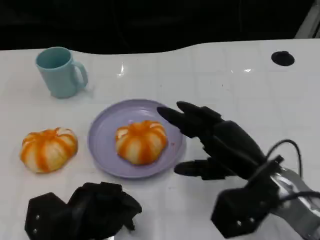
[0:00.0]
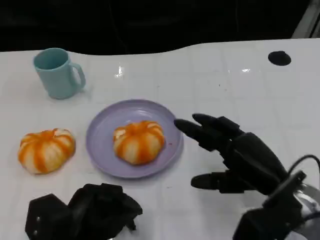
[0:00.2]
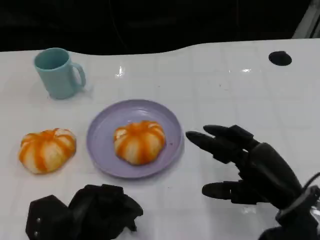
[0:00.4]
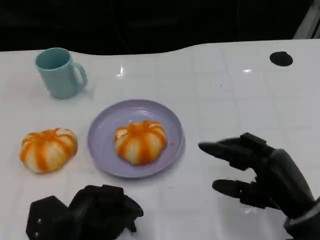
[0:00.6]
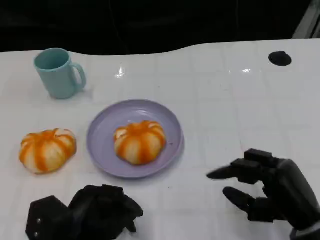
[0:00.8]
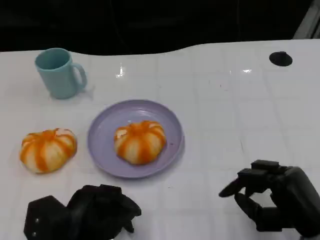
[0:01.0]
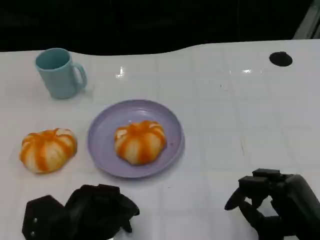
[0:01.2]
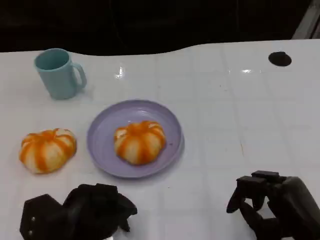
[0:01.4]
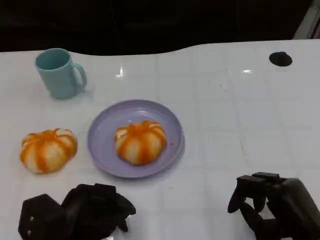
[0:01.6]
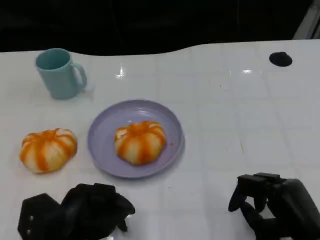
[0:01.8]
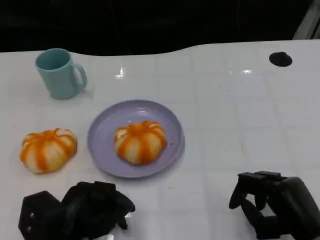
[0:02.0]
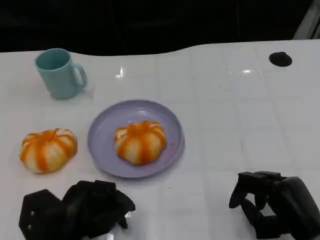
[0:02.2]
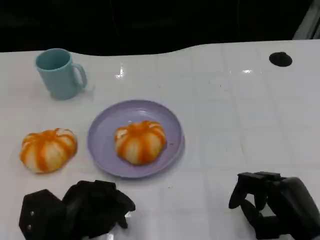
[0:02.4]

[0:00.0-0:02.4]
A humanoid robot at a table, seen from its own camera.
Task of the whole recording: Grasp the bread from the table and place it into the plate.
0:00.0 to 0:01.2: The right hand heads backward, to the right and downward, covering some 10 cm.
0:01.2 to 0:02.4: There are only small adjustments of the hands.

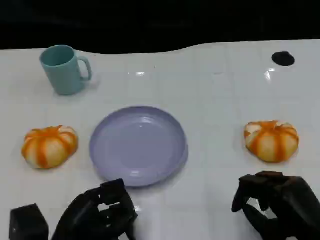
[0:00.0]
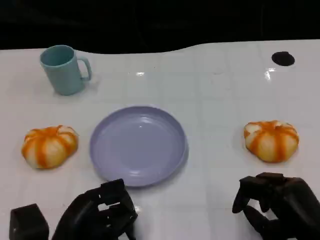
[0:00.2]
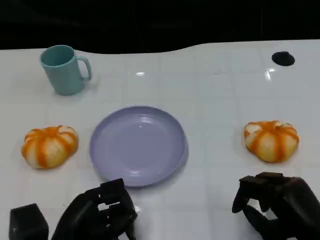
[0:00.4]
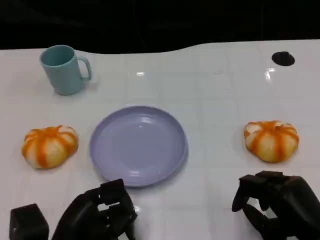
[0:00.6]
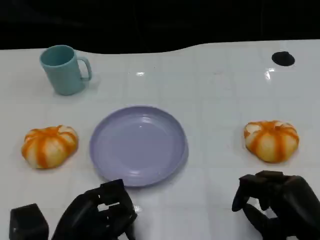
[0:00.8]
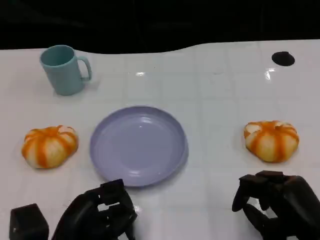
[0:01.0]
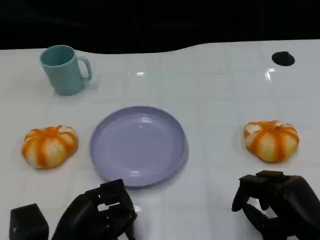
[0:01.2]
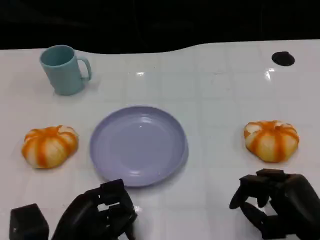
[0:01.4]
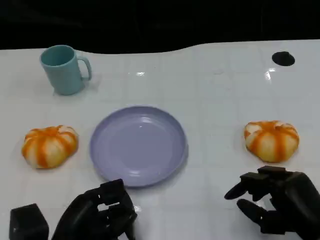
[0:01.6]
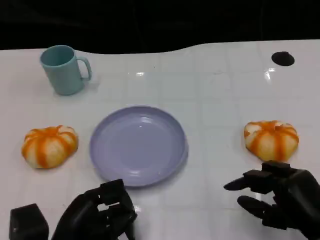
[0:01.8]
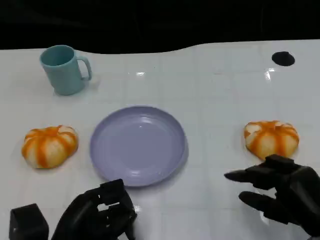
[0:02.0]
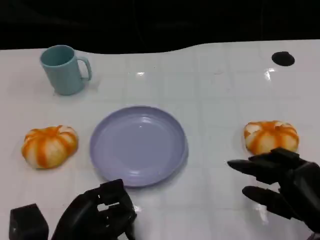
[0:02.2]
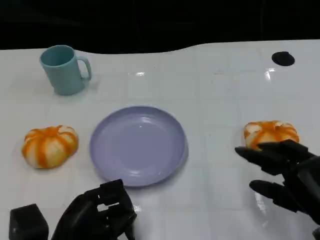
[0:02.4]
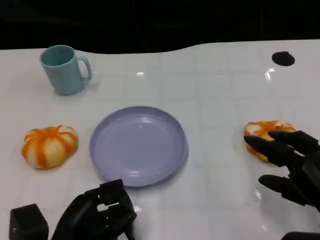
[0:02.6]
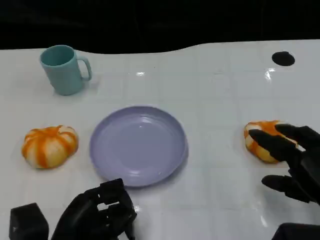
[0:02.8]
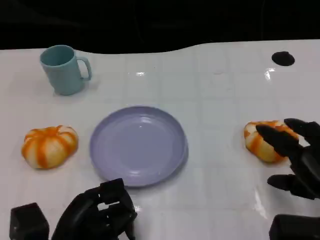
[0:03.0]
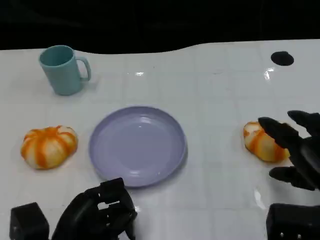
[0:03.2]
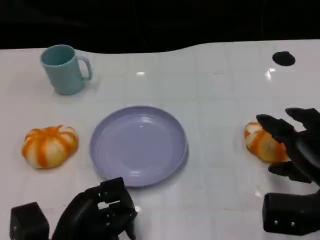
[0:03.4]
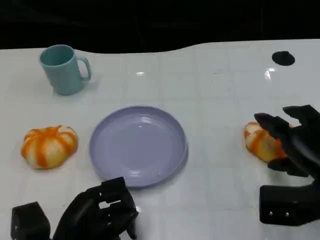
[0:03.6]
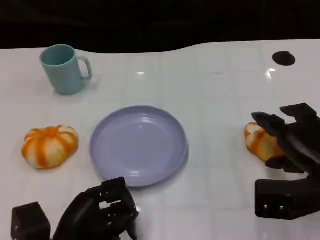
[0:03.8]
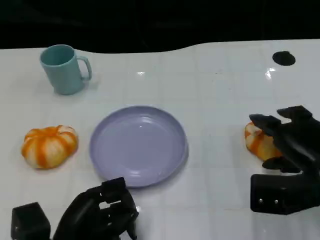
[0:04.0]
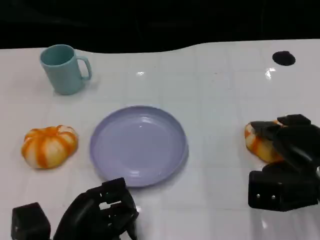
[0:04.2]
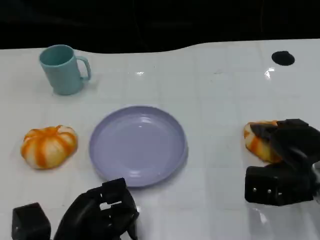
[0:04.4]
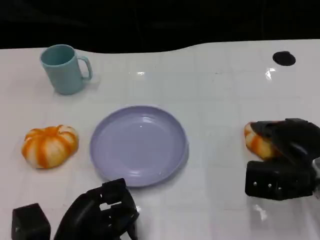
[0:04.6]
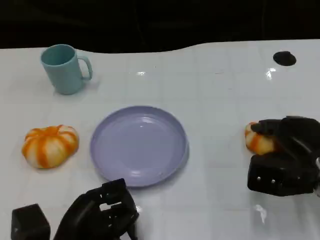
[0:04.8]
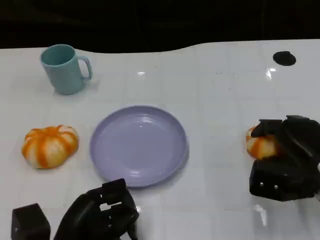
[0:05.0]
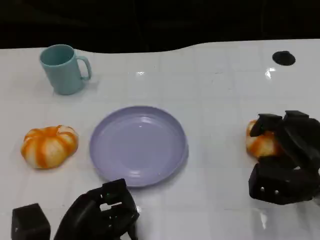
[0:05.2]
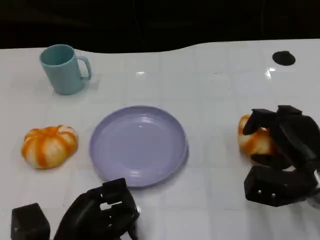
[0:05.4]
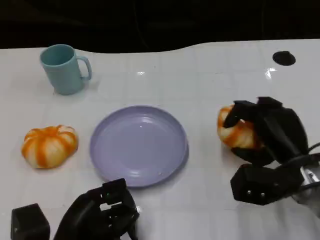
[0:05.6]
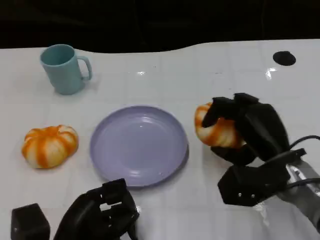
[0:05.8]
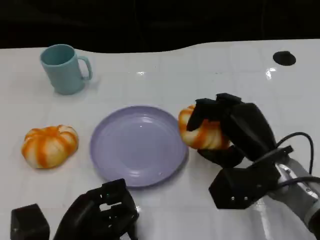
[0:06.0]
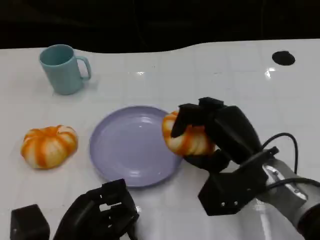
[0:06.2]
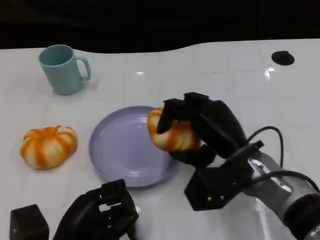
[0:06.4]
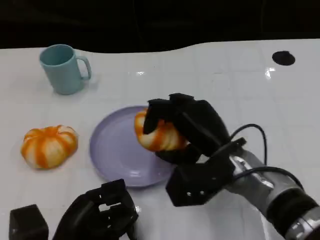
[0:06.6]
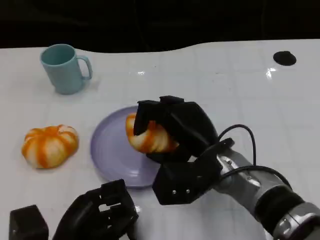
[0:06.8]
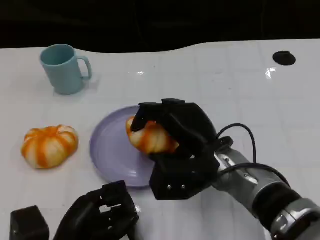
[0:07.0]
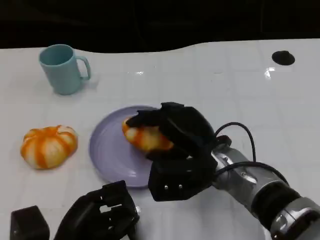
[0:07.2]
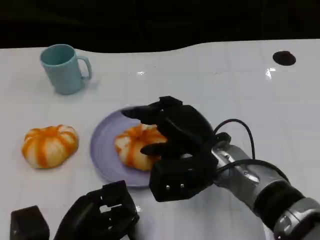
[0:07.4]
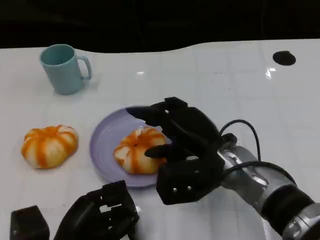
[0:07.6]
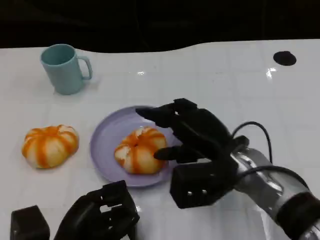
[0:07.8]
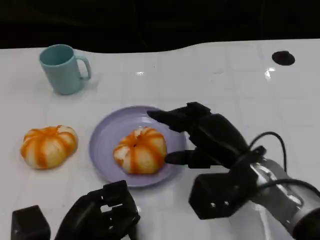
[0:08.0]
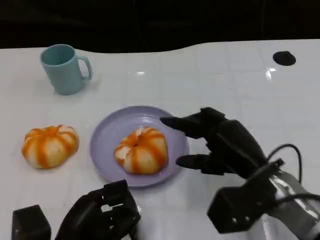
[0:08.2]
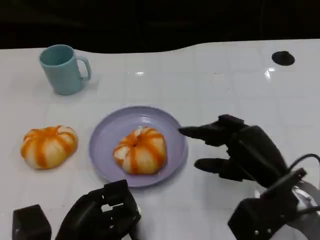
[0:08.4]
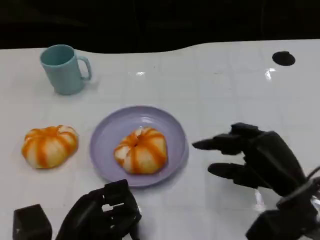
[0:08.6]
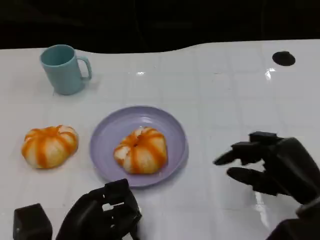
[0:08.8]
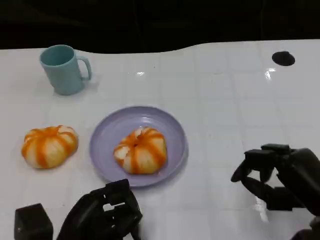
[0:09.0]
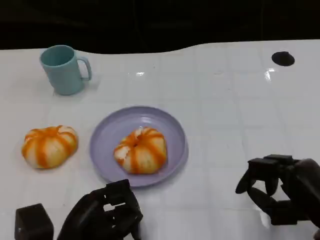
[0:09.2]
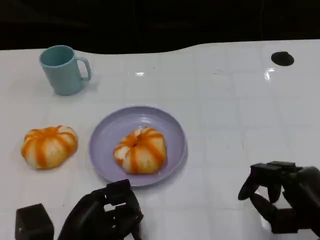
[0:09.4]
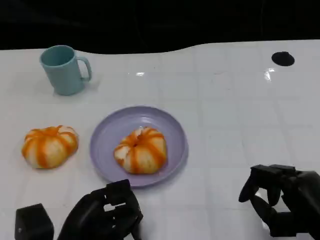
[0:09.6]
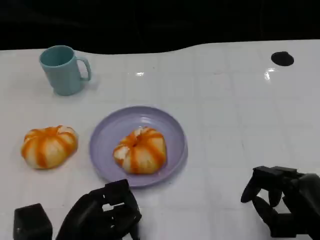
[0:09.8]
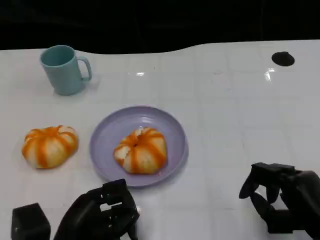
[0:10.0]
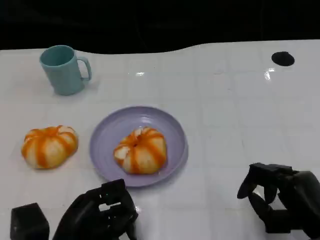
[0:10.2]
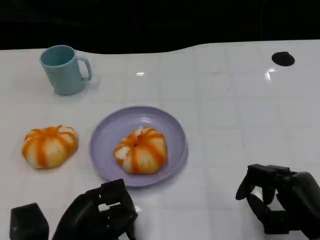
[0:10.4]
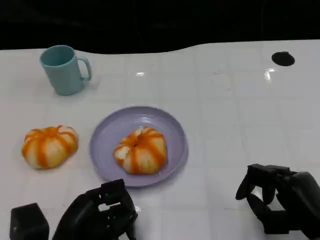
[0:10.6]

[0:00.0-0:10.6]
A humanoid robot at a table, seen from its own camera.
Task of the whole recording: Grasp the bread from the table and place it into the plate.
0:00.0 to 0:01.6: Neither hand changes place.
0:01.6 to 0:03.0: The right hand ends up approximately 5 cm from where it was.
0:03.0 to 0:04.6: The right hand travels forward by approximately 10 cm.
0:04.6 to 0:06.0: The right hand goes some 10 cm to the left.
0:06.0 to 0:07.6: The right hand is displaced to the left by some 5 cm.
0:07.6 to 0:09.0: The right hand travels to the right and backward by some 15 cm.
0:09.0 to 0:10.6: There are only small adjustments of the hands.

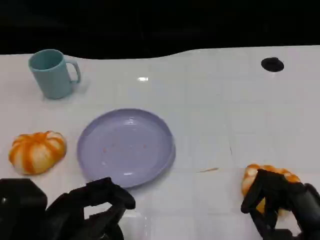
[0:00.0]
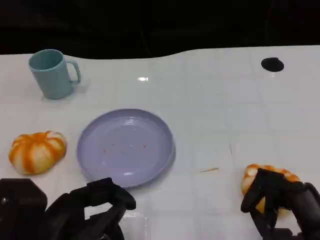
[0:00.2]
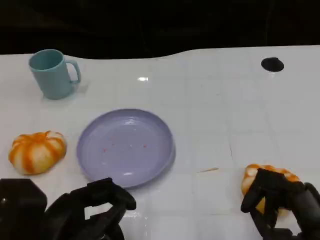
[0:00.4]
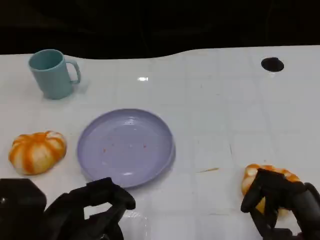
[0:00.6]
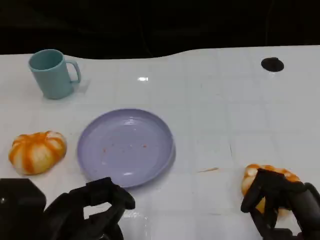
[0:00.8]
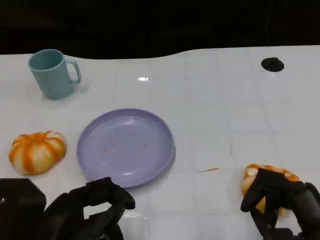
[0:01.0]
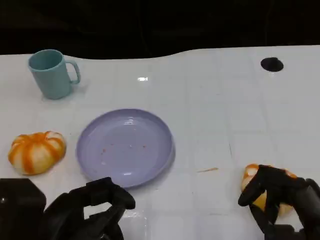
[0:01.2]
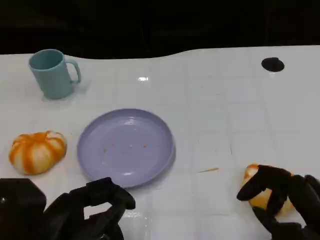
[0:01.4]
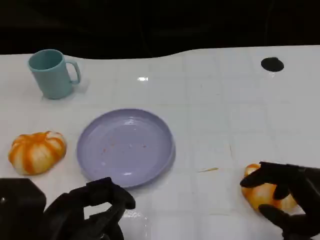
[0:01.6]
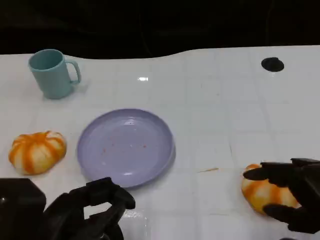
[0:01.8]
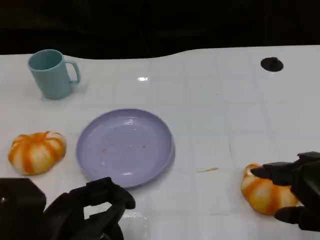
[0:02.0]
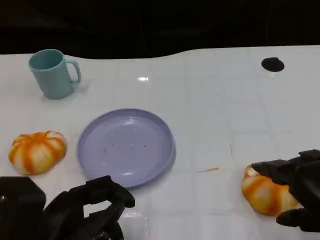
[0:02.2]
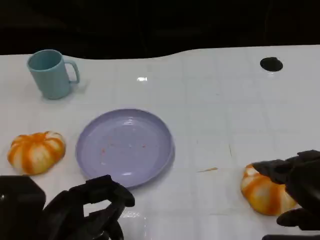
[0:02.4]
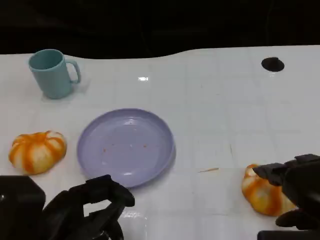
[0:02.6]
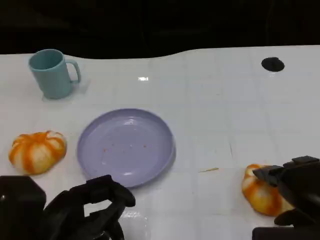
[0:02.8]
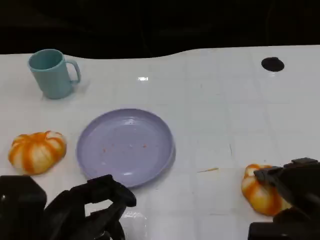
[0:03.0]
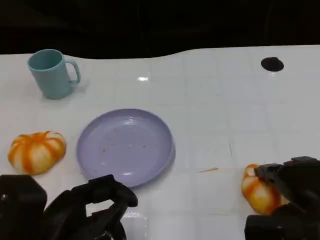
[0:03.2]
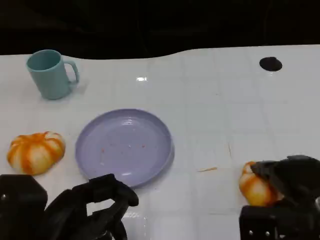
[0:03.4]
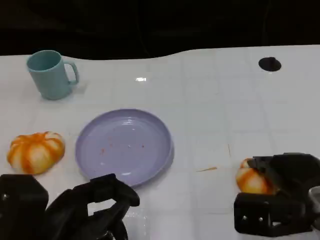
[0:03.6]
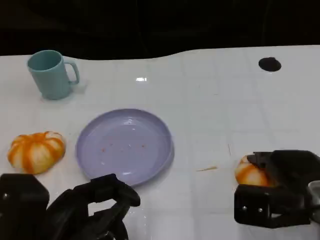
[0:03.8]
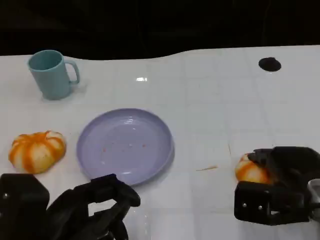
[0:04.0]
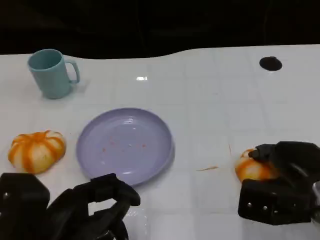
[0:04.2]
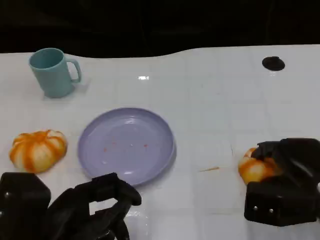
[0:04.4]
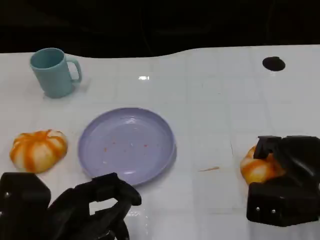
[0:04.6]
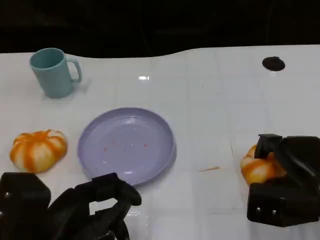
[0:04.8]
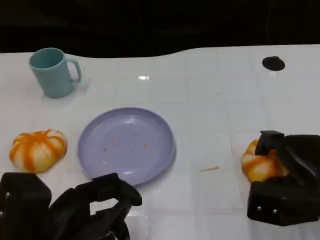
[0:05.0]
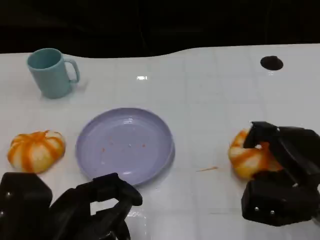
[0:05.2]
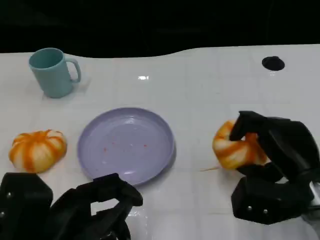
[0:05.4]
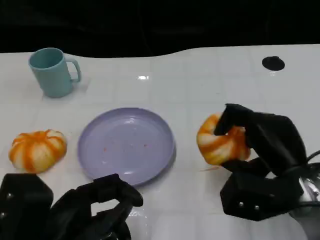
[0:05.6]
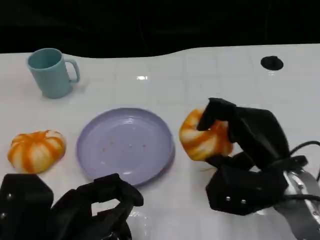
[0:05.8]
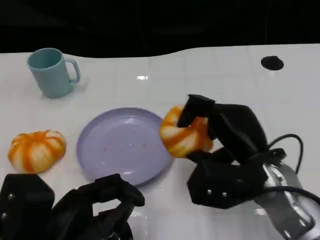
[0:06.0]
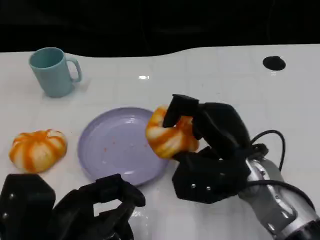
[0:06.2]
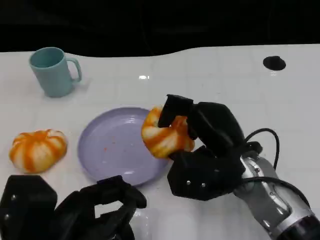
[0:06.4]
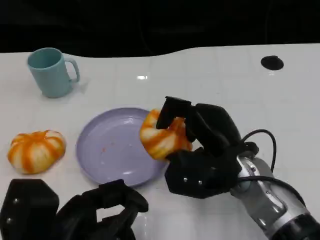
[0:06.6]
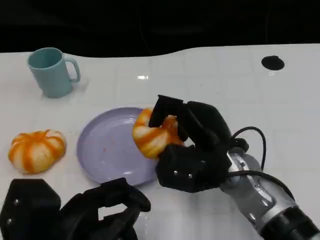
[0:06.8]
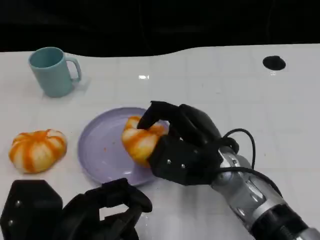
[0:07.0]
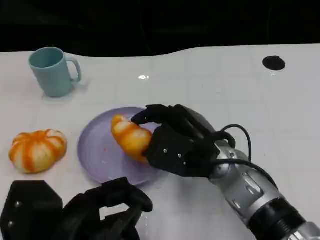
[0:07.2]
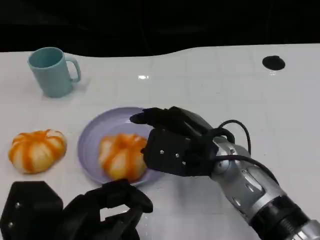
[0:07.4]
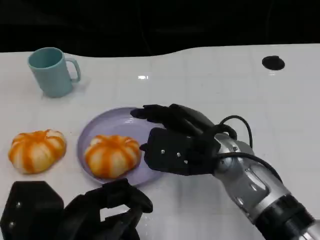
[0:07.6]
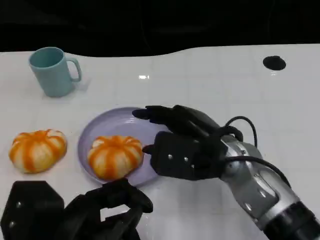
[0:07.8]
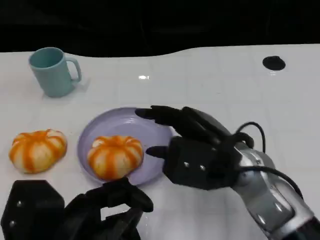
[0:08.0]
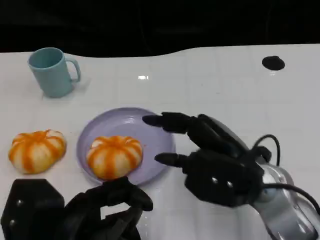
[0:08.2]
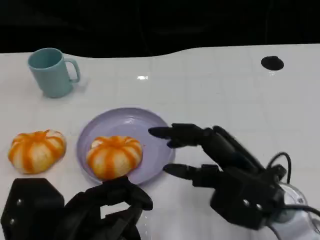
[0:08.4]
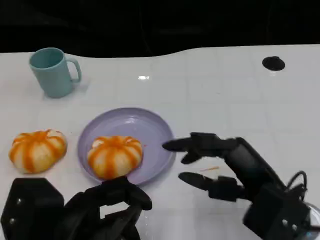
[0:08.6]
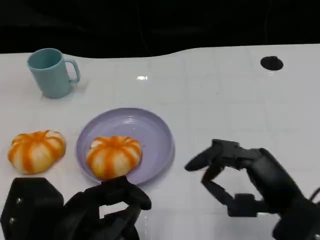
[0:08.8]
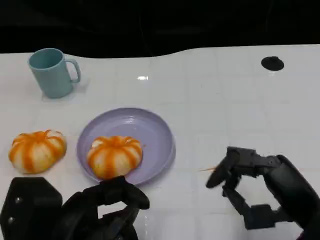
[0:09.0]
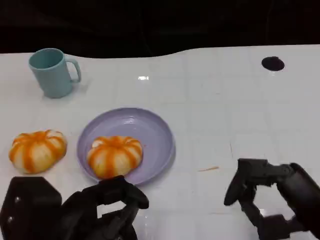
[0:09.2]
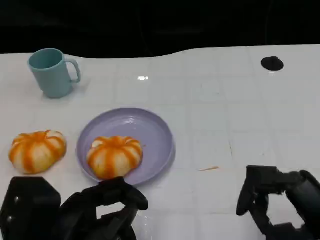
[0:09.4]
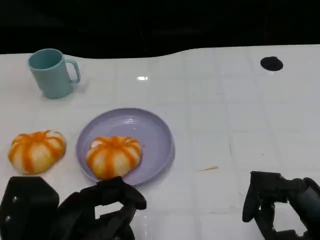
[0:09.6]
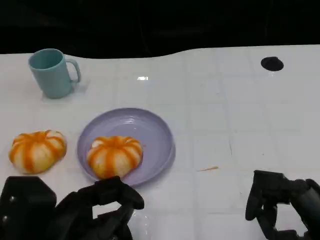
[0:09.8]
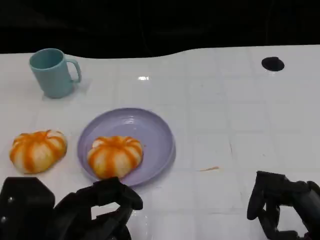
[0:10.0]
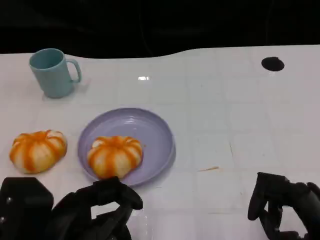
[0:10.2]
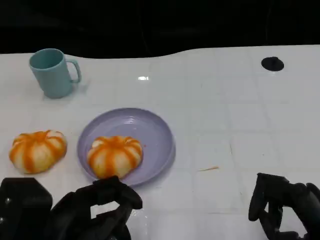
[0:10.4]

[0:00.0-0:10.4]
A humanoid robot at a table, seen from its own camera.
Task of the whole recording: Grasp the bread from the table and place it into the plate.
0:00.0 to 0:01.4: The hands move only a little.
0:03.0 to 0:04.4: The right hand heads forward, covering approximately 5 cm.
0:04.4 to 0:06.0: The right hand is displaced to the left by roughly 10 cm.
0:06.0 to 0:07.4: The right hand heads to the left, covering roughly 5 cm.
0:07.4 to 0:09.0: The right hand travels to the right and backward by about 20 cm.
0:09.0 to 0:10.4: The hands stay close to where they were, moving slightly.
